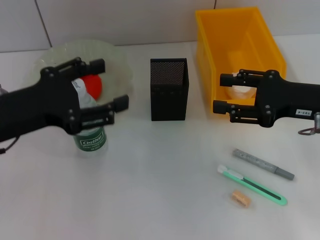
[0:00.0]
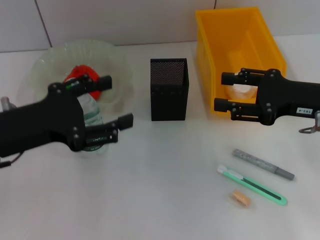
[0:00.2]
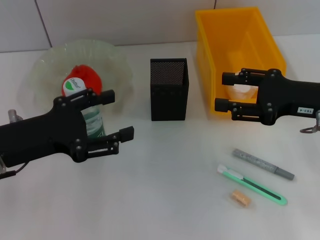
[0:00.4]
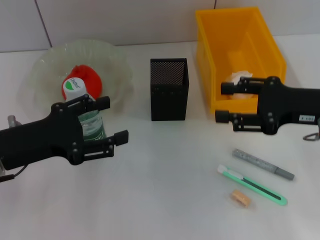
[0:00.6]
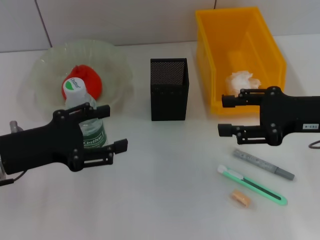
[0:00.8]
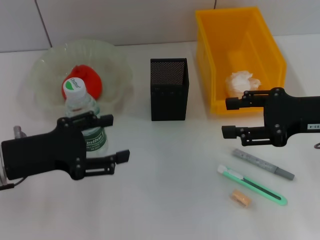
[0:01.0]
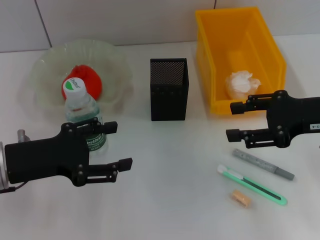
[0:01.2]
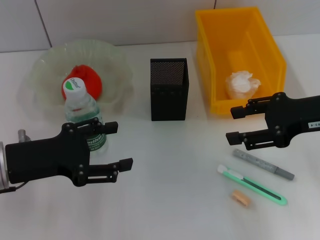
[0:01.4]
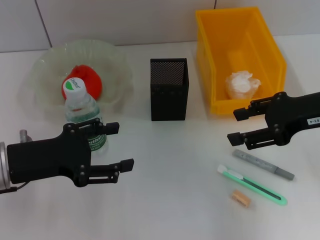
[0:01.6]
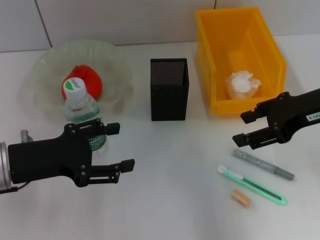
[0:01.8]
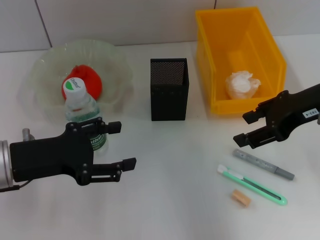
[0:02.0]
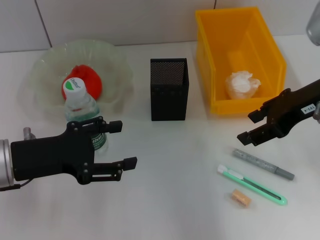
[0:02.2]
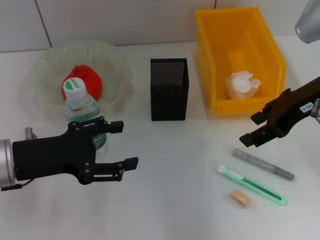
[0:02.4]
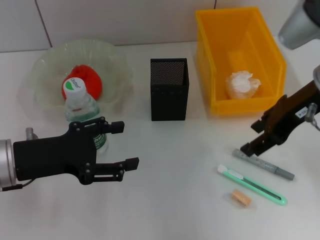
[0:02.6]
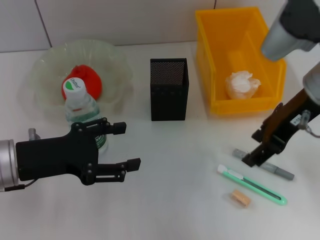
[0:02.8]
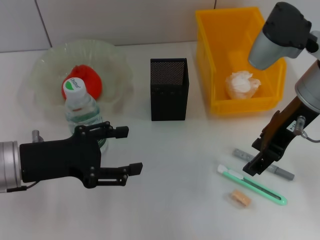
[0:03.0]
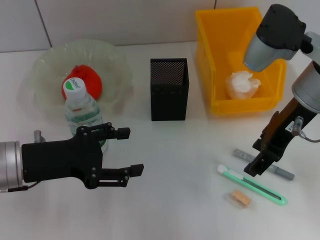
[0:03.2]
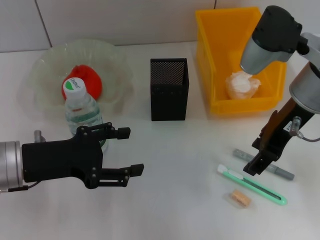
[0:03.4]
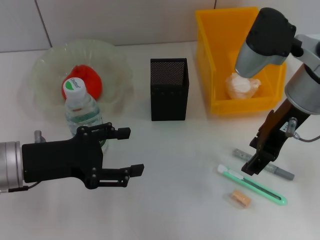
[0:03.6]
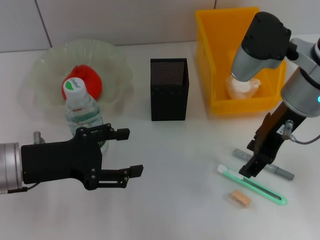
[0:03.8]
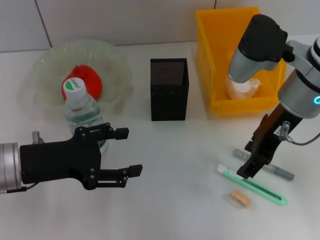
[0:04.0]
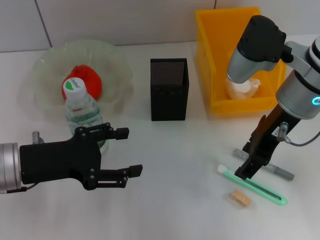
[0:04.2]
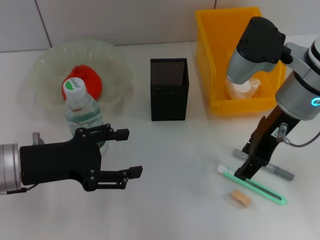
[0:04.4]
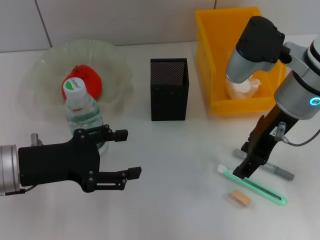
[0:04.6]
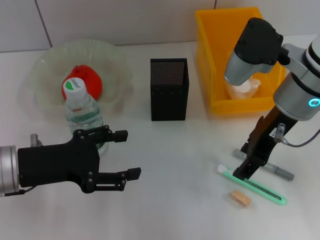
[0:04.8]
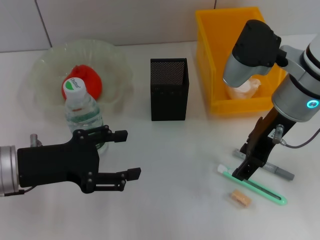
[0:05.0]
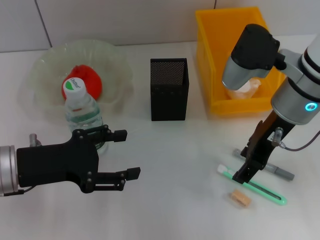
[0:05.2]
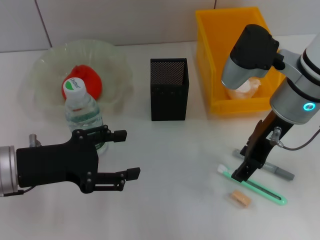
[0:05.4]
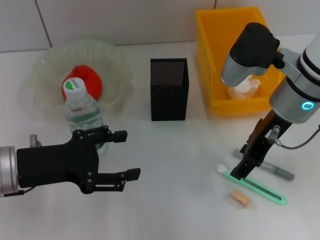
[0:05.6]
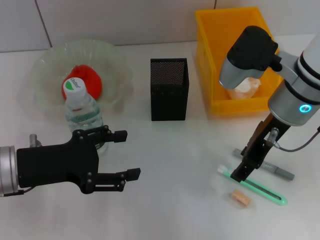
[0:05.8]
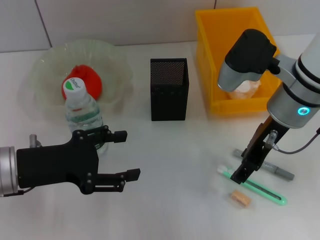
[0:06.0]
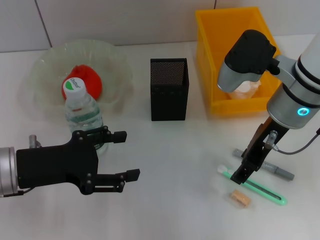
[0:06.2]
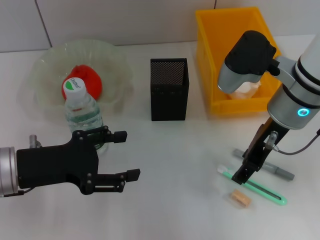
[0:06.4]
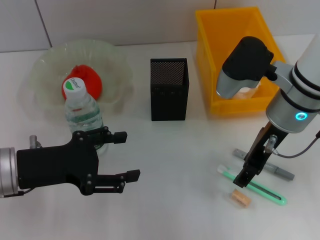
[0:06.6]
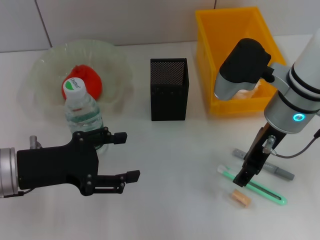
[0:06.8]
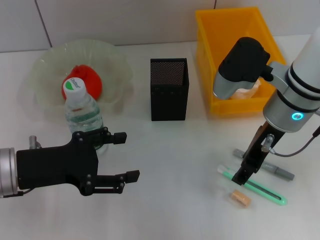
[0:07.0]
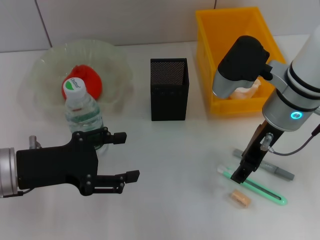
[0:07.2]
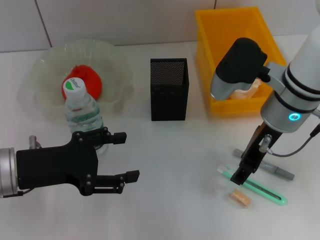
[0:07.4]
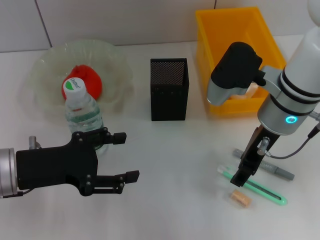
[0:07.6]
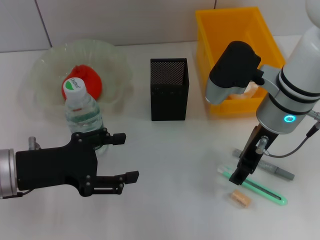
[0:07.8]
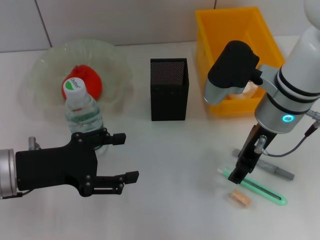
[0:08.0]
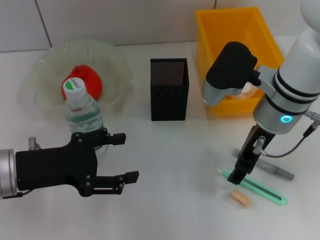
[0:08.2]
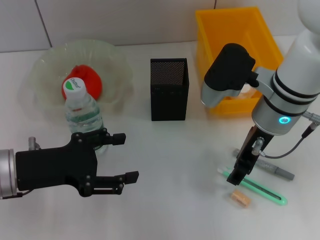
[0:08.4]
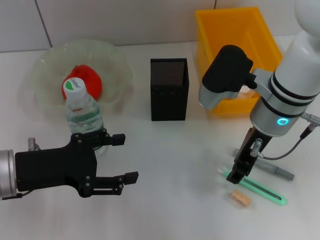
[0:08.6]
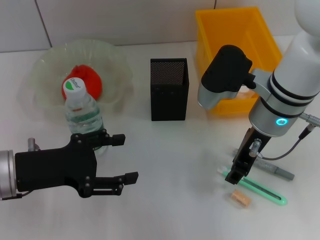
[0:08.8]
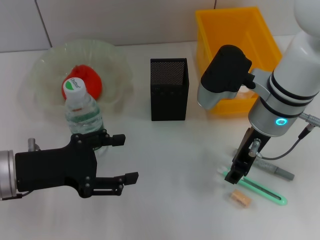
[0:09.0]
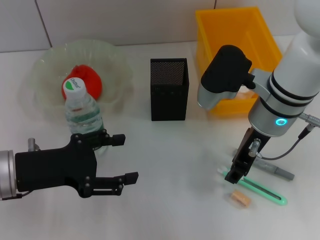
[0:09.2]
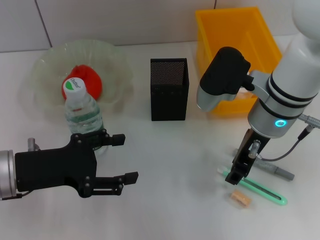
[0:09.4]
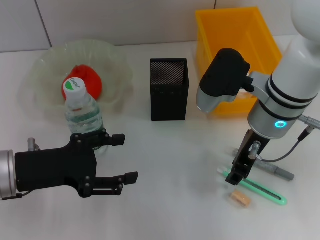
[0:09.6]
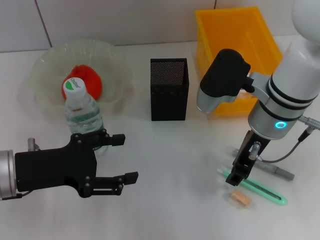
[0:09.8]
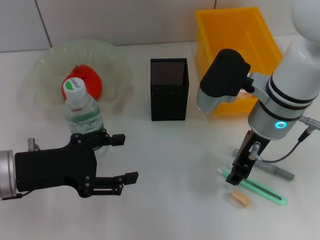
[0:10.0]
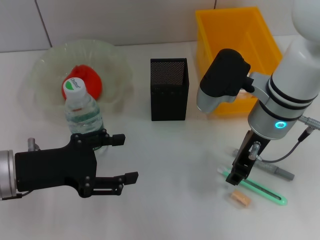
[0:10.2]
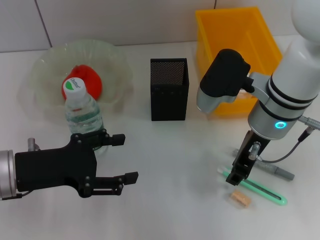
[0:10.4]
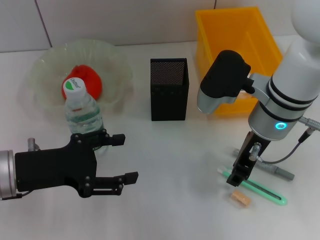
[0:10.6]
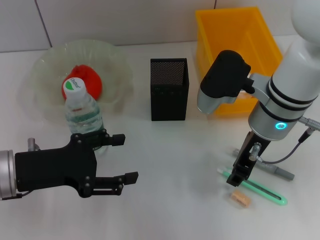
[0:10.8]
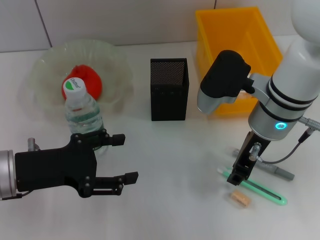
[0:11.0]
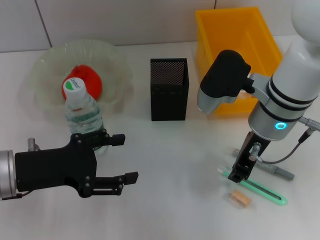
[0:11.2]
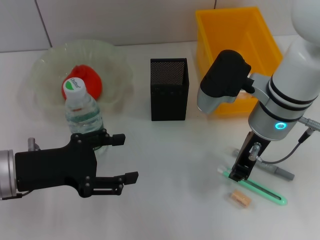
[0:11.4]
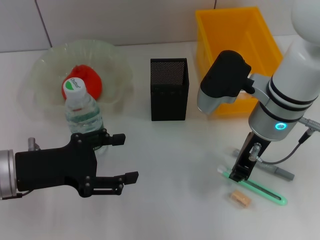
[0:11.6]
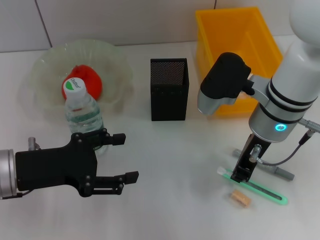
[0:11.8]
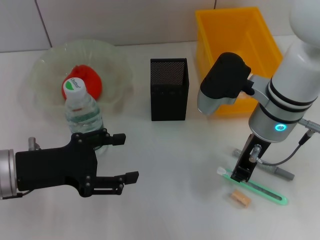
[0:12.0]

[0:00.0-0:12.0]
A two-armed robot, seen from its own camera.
0:00.0 to 0:01.6: The left gripper goes roughly 5 cm downward.
0:01.6 to 0:03.0: The right gripper goes roughly 5 cm to the left.
0:03.0 to 0:06.0: There are only small adjustments of the grippers.
0:06.0 to 0:07.6: The grippers move only a little.
0:07.6 to 0:10.4: Neither gripper changes place.
0:10.4 to 0:12.0: The right gripper closes up.

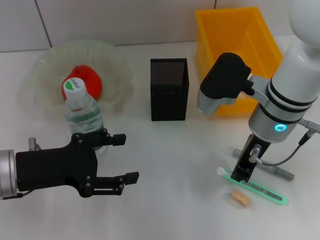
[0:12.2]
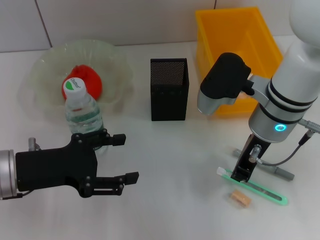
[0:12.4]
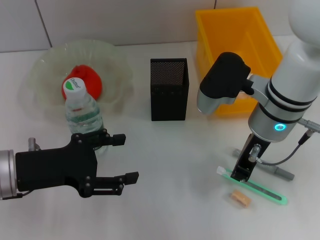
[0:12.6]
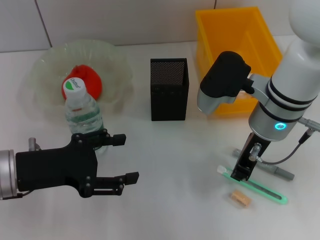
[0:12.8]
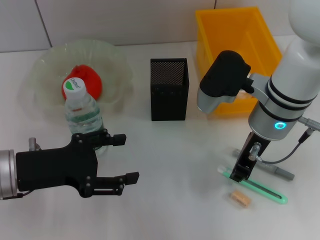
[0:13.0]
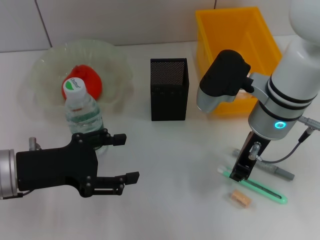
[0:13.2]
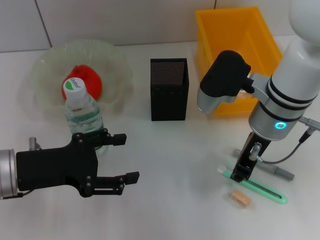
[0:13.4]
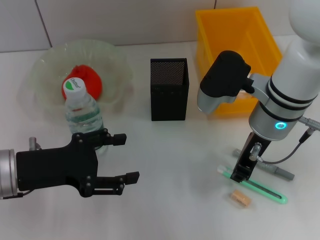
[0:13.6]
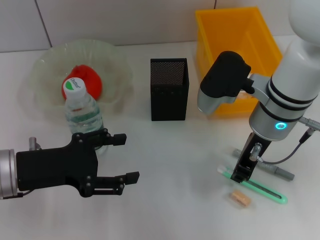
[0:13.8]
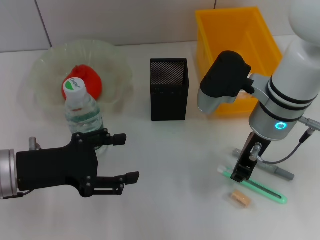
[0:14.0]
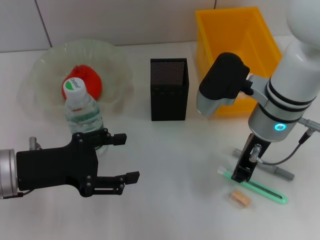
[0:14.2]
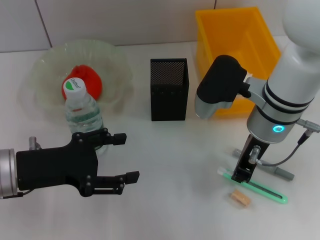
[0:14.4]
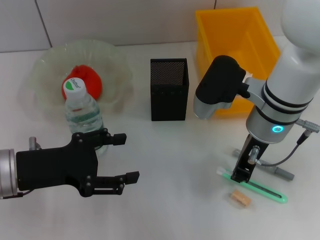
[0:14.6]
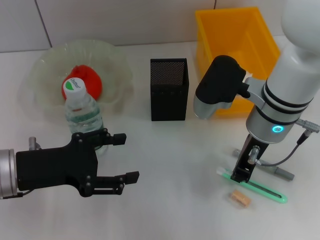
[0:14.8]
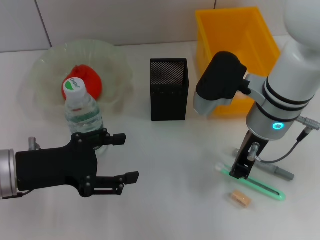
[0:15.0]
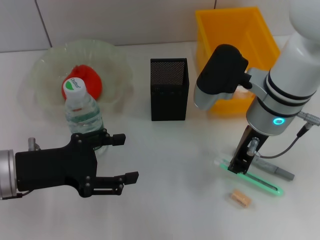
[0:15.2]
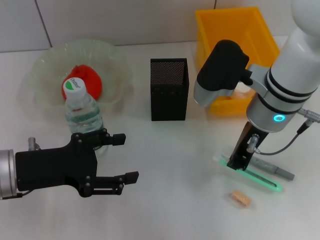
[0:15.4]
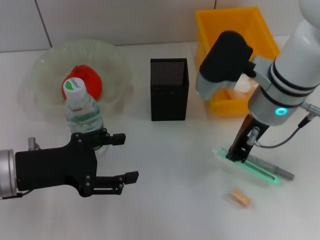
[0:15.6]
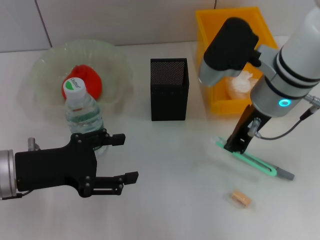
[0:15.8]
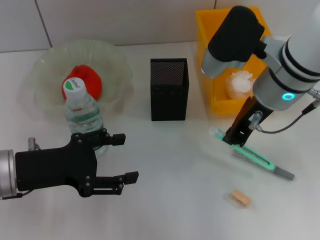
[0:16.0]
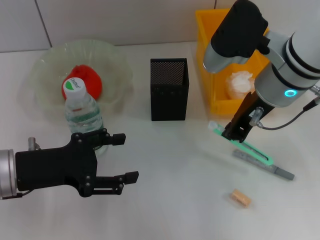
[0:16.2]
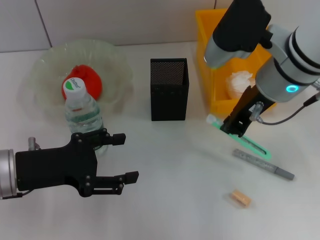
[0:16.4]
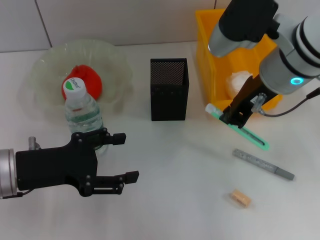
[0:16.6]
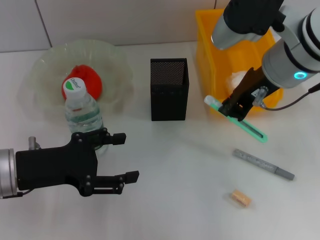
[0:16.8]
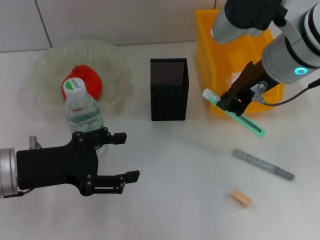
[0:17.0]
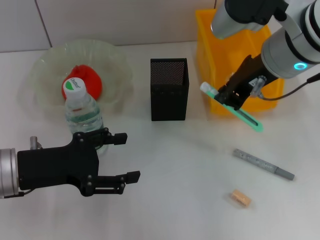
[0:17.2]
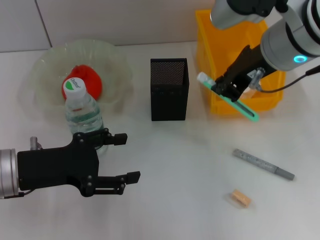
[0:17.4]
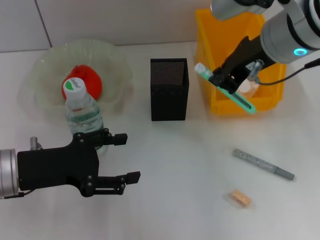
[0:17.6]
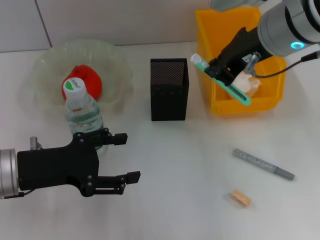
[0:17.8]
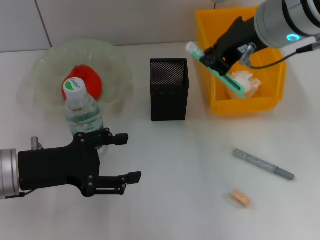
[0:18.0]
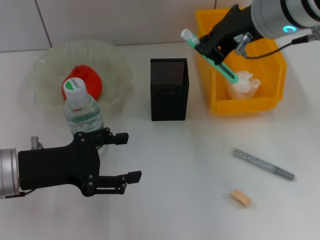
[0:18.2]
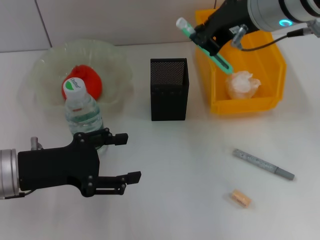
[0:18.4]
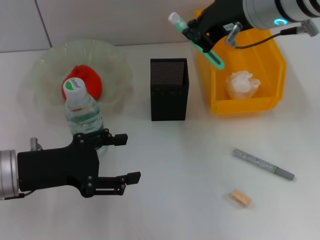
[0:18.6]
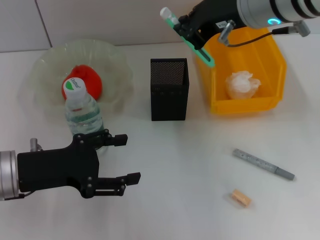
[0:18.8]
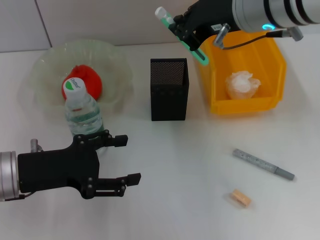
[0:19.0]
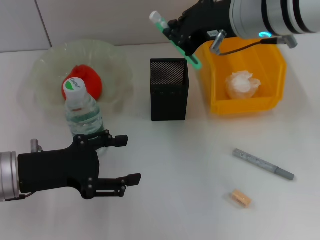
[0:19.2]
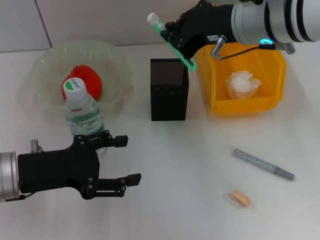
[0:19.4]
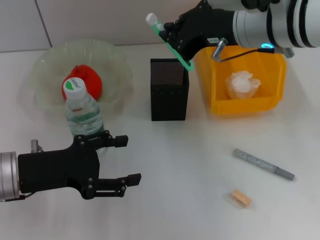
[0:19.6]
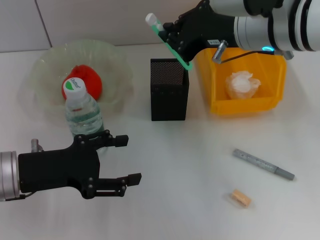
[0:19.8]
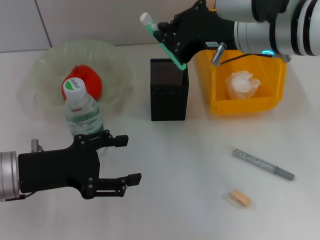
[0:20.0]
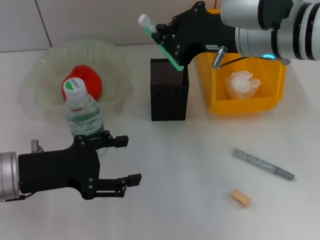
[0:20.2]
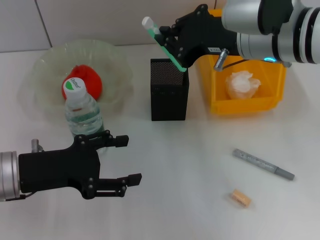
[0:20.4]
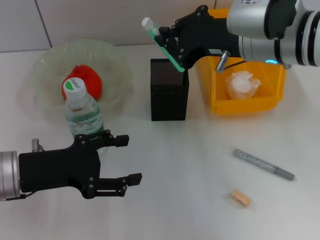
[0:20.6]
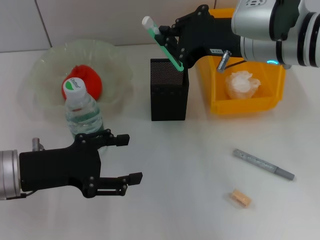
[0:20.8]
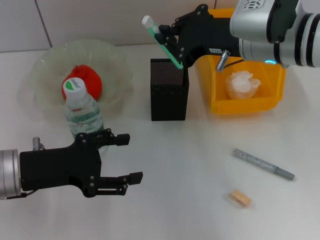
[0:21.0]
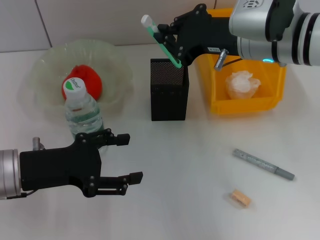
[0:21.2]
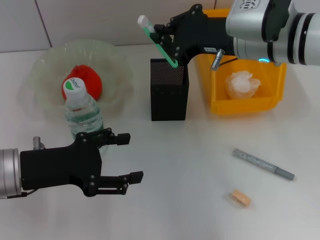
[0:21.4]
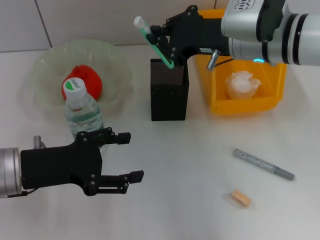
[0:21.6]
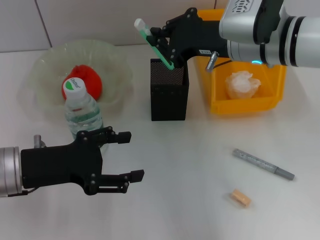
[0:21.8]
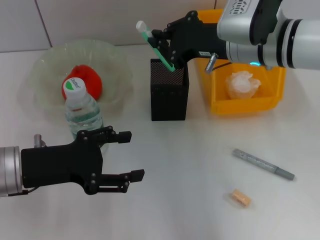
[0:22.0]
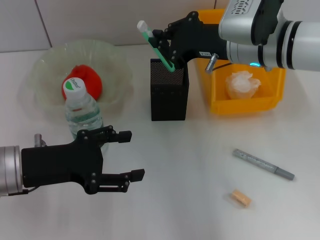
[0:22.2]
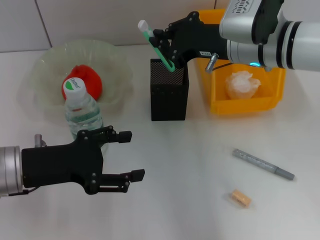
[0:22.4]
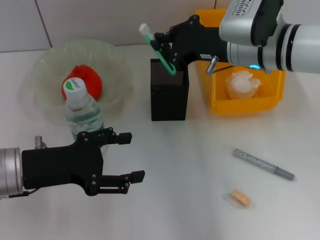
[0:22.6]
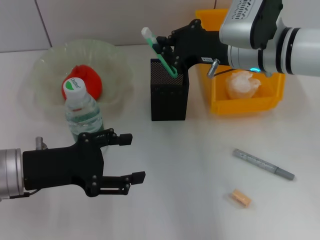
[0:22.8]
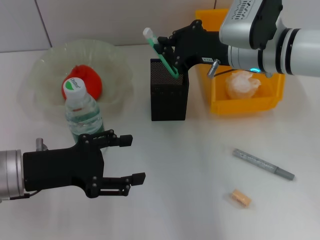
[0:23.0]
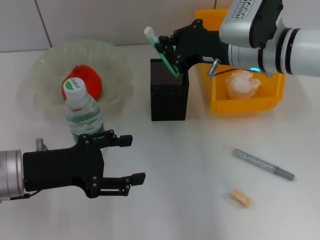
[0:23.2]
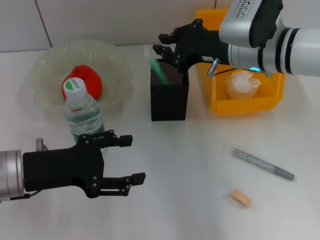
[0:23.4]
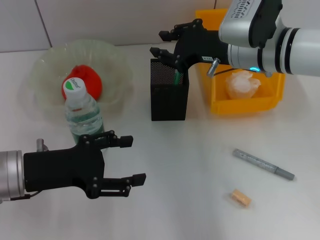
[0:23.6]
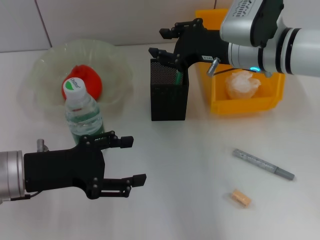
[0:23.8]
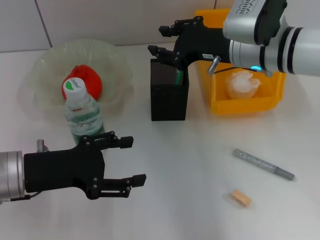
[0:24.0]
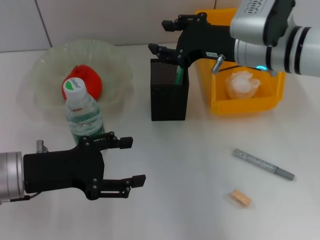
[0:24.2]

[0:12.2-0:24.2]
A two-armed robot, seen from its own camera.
Step, 0:12.2 to 0:14.4: Grab the blue utility knife with the right hand.
Step, 0:14.8 to 0:23.8: Place the blue utility knife into the pen holder with the right hand.
0:12.2 to 0:15.2: Both grippers stay about where they are.
0:15.2 to 0:16.6: The right gripper goes roughly 5 cm upward.
0:16.6 to 0:18.2: The right gripper goes some 5 cm upward.
0:19.8 to 0:21.2: The grippers make only small movements.
0:21.2 to 0:22.6: The grippers move only a little.
0:22.6 to 0:24.2: The right gripper opens its fingers.
